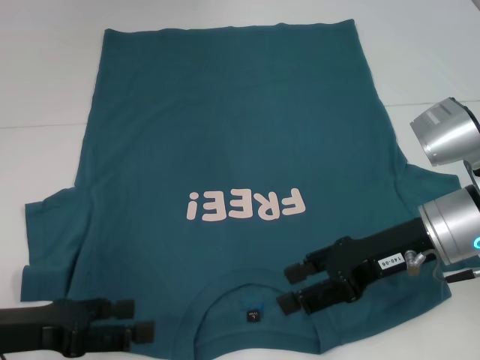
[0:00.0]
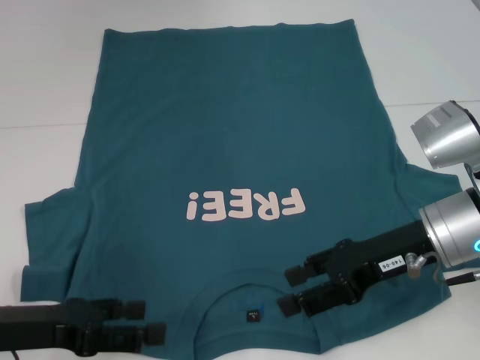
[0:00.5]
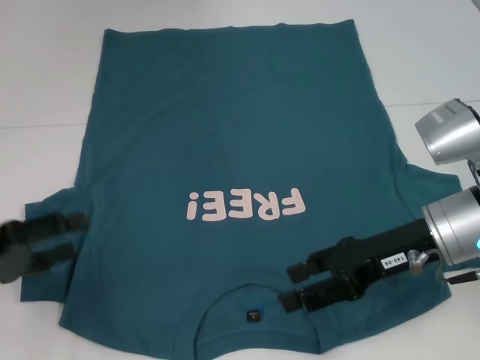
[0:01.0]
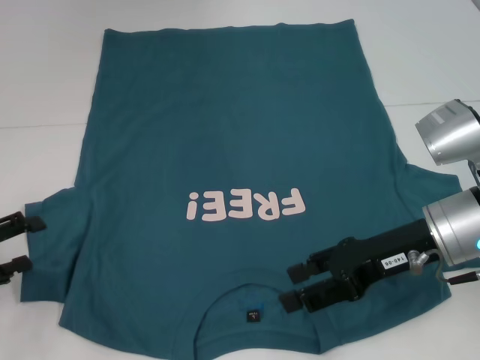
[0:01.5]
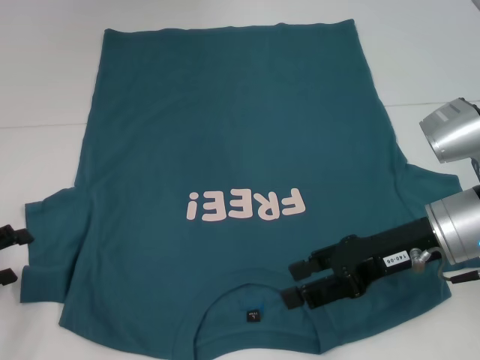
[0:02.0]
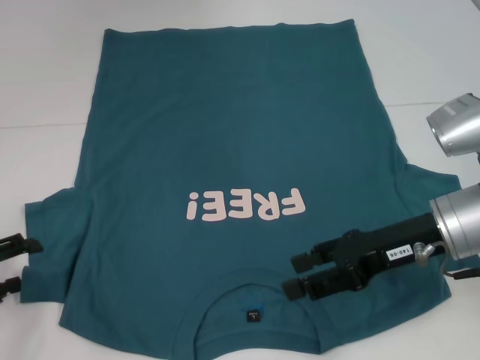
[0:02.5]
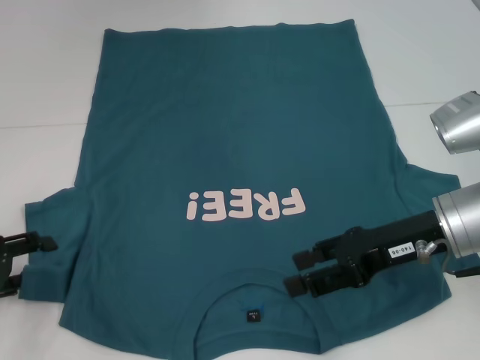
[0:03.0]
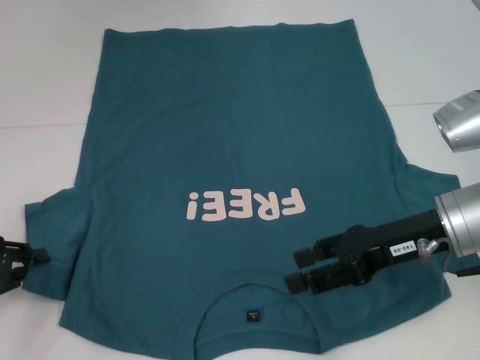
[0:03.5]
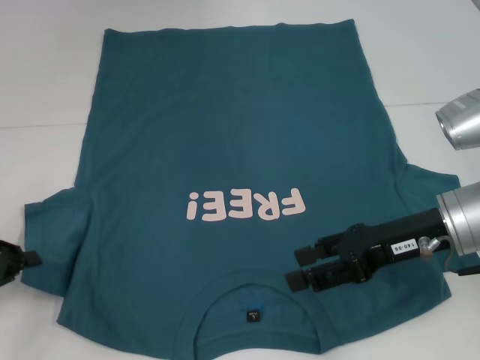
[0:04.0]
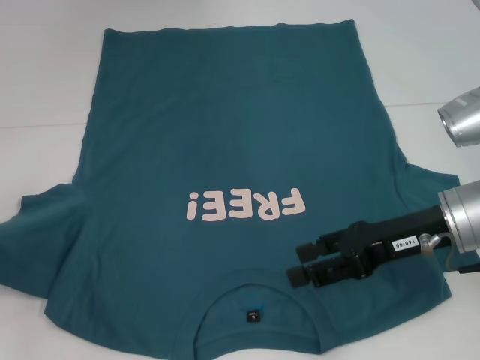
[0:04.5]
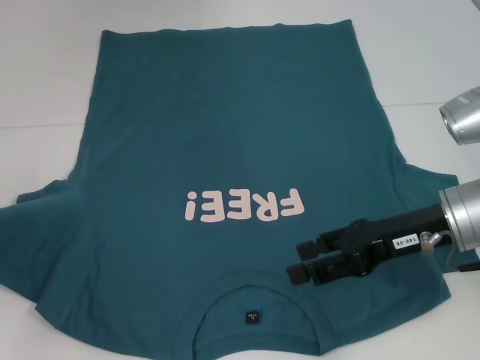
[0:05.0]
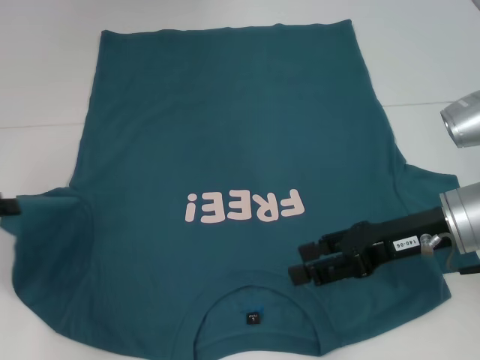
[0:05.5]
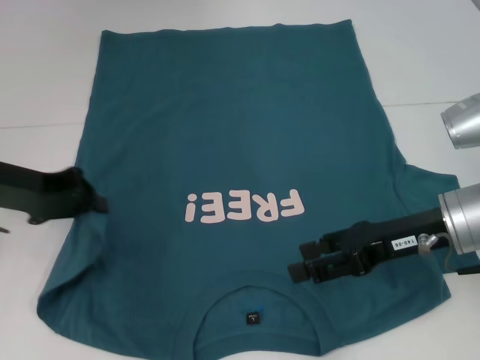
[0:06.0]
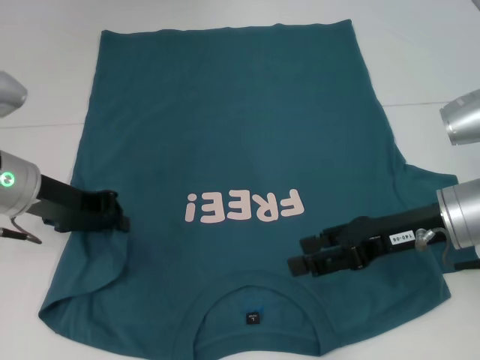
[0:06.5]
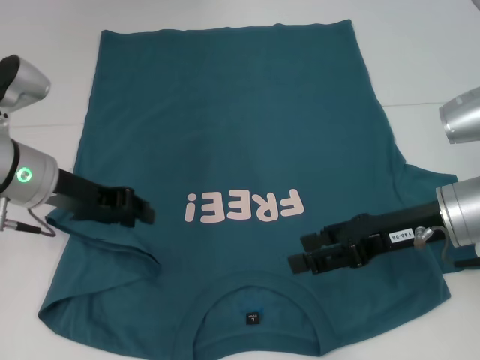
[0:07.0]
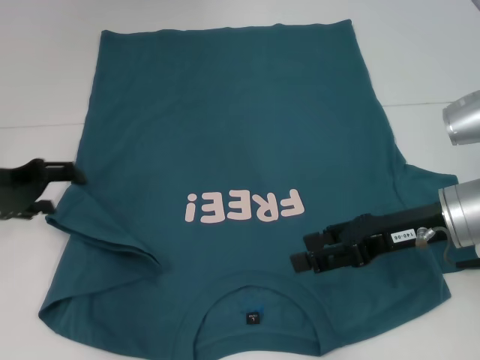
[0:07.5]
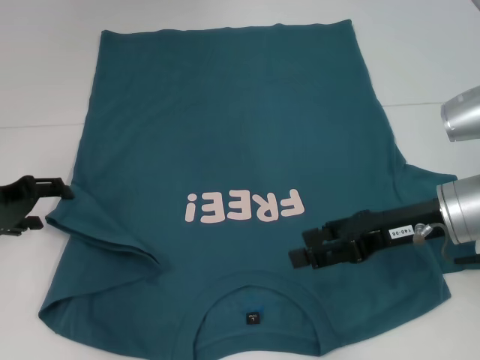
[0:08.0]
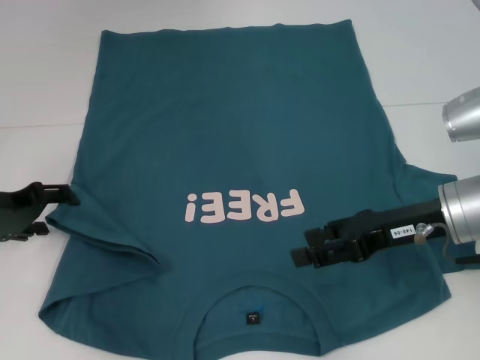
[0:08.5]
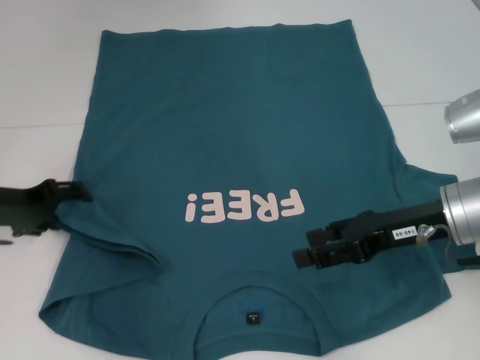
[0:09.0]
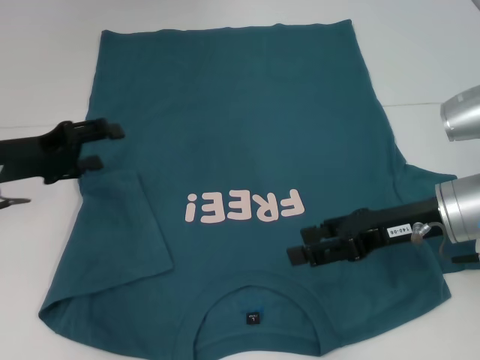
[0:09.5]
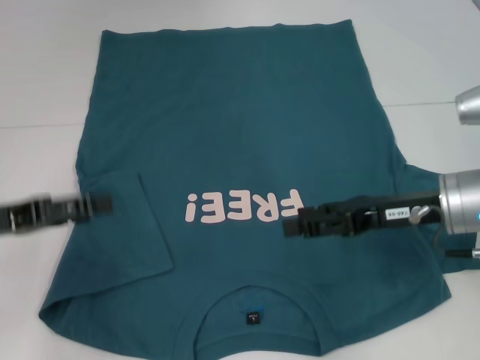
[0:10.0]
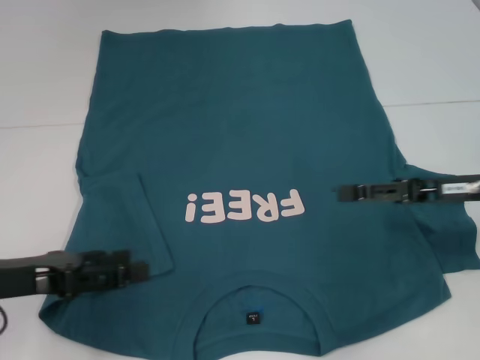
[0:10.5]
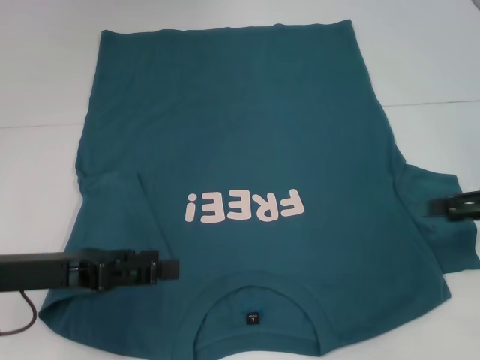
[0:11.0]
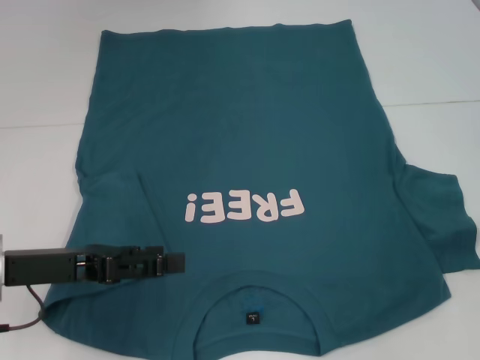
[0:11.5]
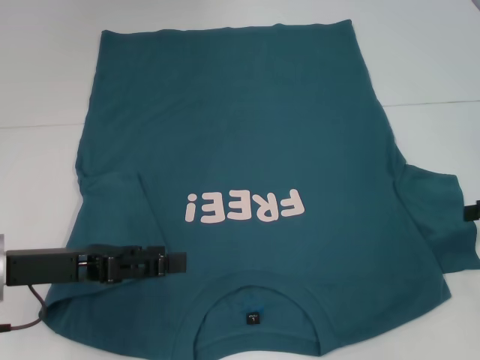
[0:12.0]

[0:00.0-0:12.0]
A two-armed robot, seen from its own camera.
Step, 0:00.0 to 0:09.5: Fold the bottom left sleeve with your left hand.
0:00.0 to 0:02.0: The left gripper is displaced to the left by some 10 cm.
0:02.0 to 0:04.0: The left gripper closes up.
0:04.0 to 0:06.0: The left gripper heads to the right, forward and upward, covering some 15 cm.
0:06.0 to 0:08.0: The left gripper goes approximately 5 cm downward, and opens its fingers.
0:08.0 to 0:10.0: The left gripper moves backward, roughly 5 cm.
0:10.0 to 0:12.0: The left gripper goes about 5 cm to the right. The right gripper goes some 15 cm to the right.

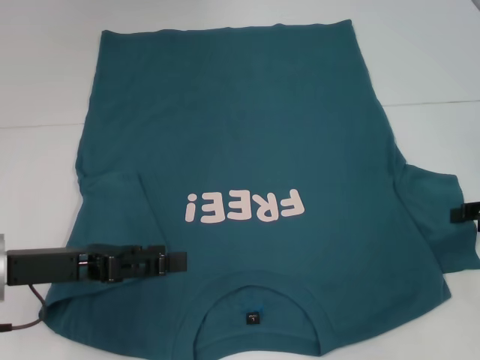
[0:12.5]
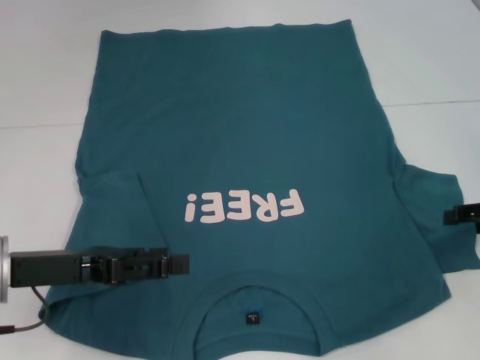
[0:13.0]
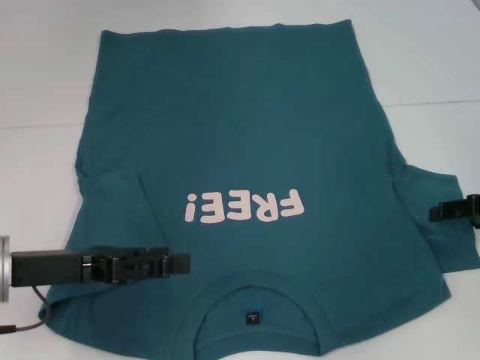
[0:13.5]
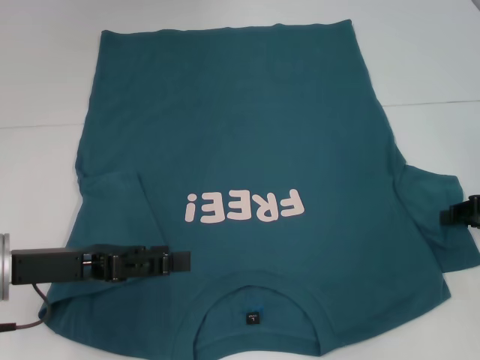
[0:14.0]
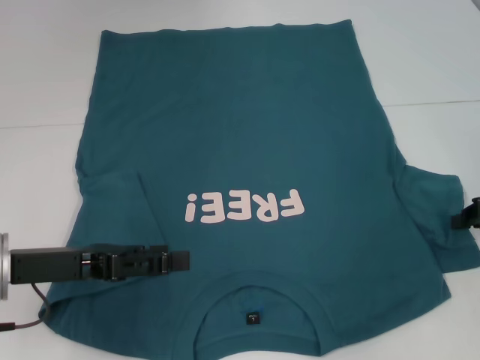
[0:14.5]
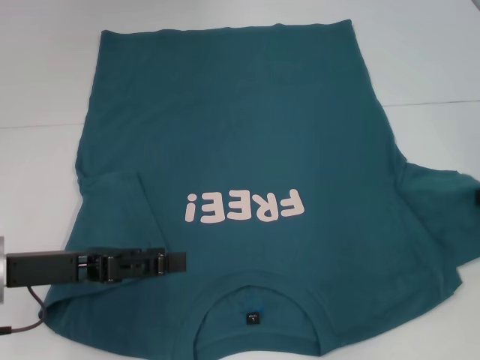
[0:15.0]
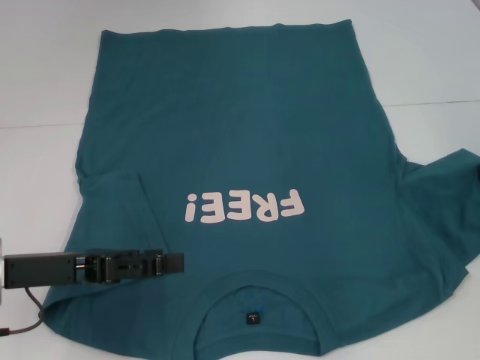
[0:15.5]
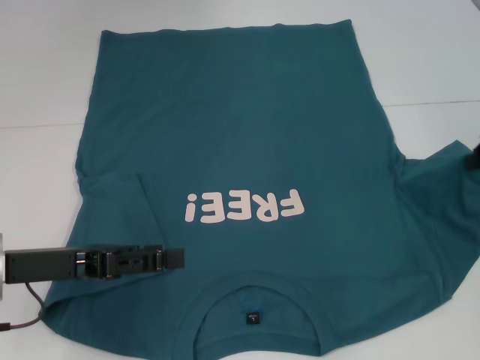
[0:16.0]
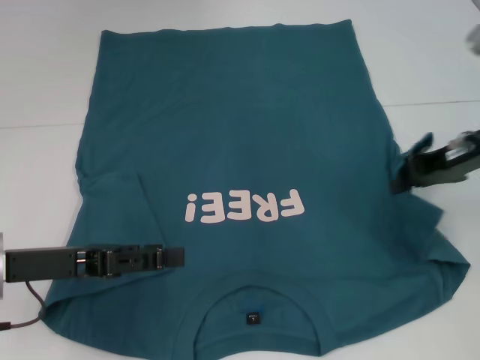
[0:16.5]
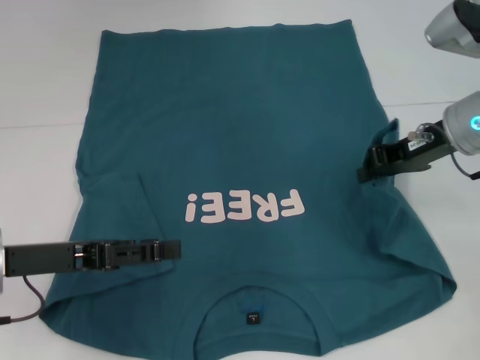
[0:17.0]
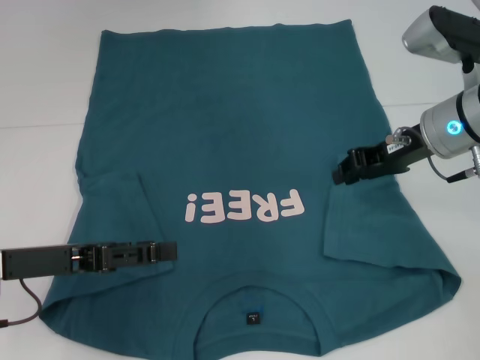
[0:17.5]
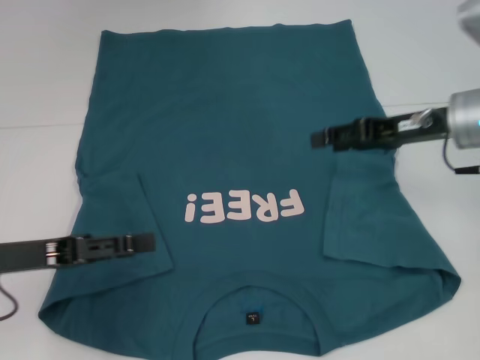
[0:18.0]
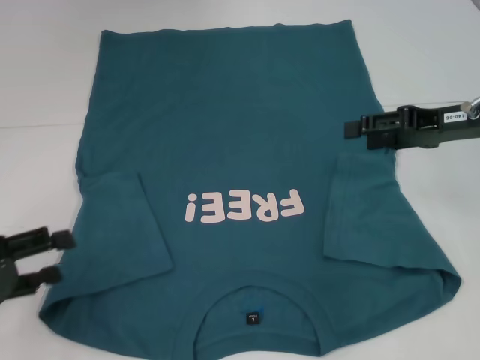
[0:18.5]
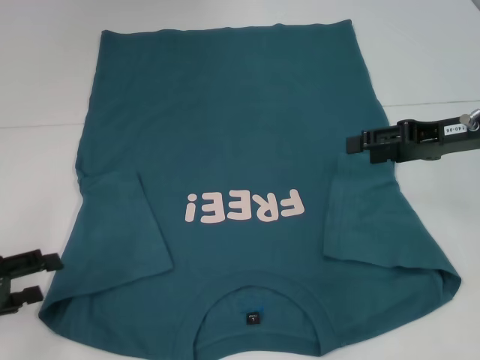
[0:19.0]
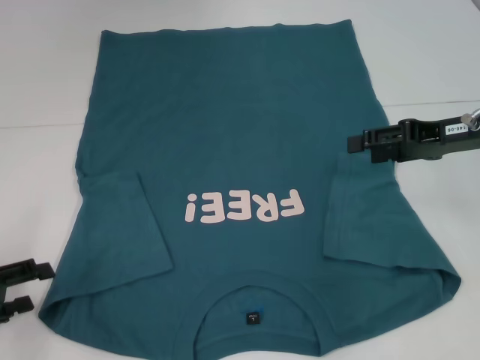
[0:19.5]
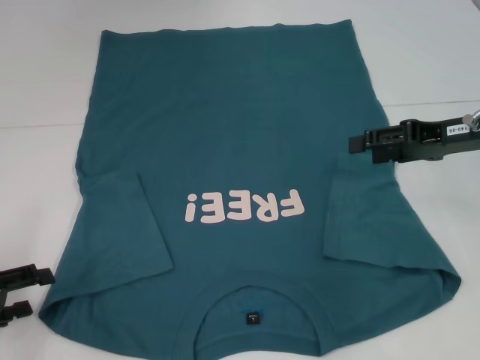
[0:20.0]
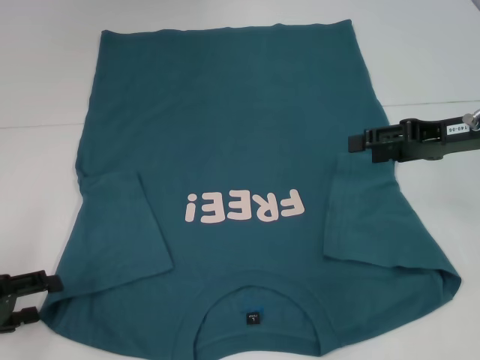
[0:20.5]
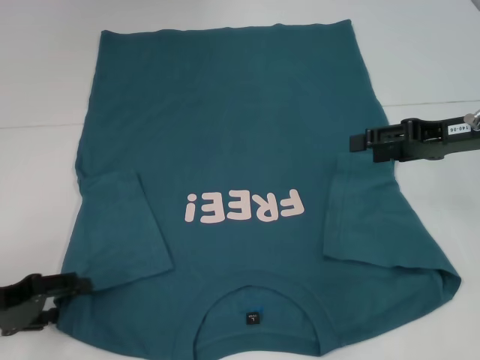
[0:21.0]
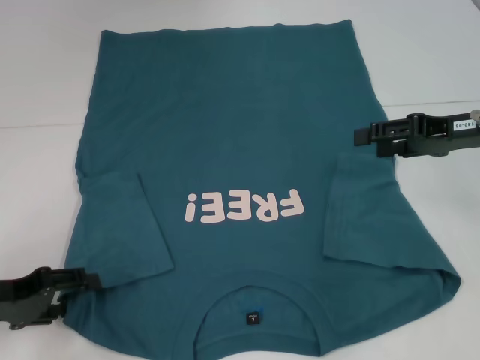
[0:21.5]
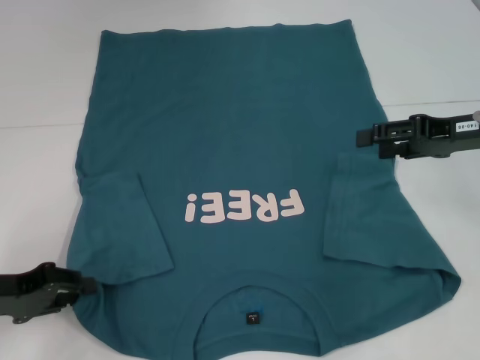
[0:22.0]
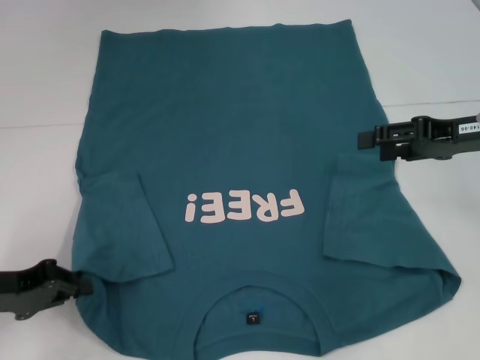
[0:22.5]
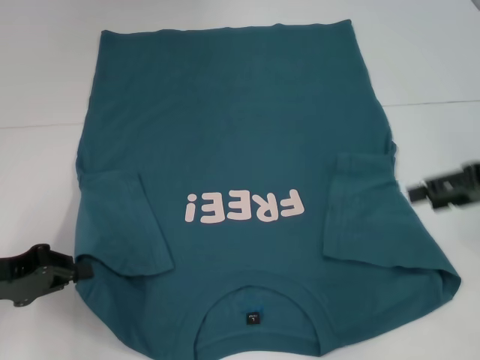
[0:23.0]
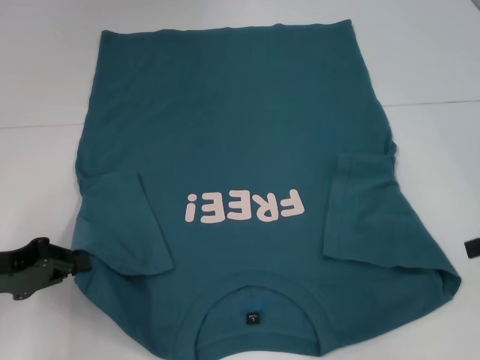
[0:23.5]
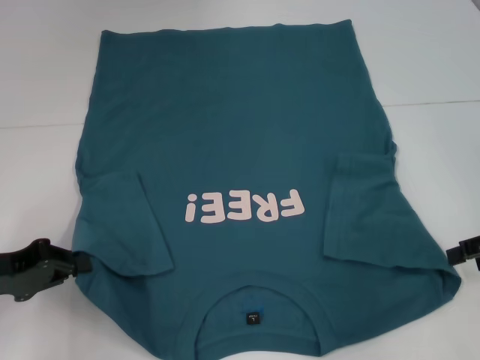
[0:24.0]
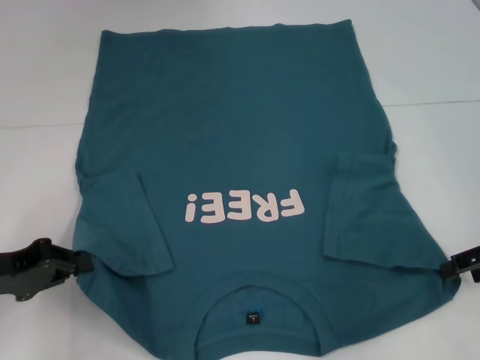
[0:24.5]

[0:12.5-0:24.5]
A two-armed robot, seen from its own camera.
Step, 0:12.5 to 0:17.5: Fold the bottom right sleeve to the right.
Step, 0:18.0 to 0:22.5: Grab the bottom left corner with your left hand.
0:14.5 to 0:16.5: The right gripper moves to the left, upward and forward, some 10 cm.
0:16.5 to 0:18.5: The right gripper opens up; the left gripper heads to the left, covering roughly 10 cm.
0:18.5 to 0:20.5: The grippers move only a little.
0:20.5 to 0:22.5: The left gripper closes.
0:22.5 to 0:24.5: The right gripper moves backward and to the right, roughly 5 cm.

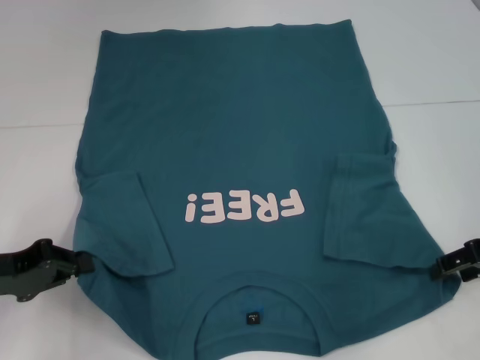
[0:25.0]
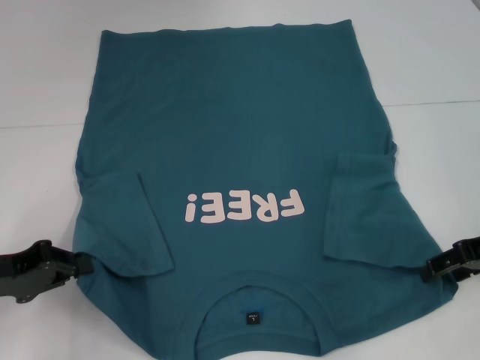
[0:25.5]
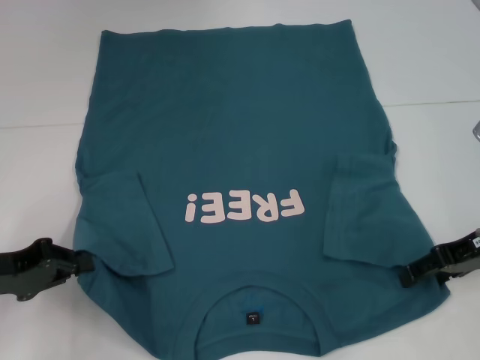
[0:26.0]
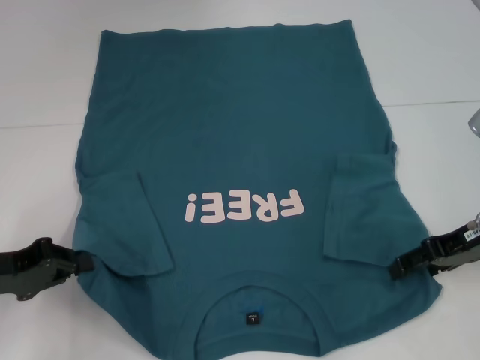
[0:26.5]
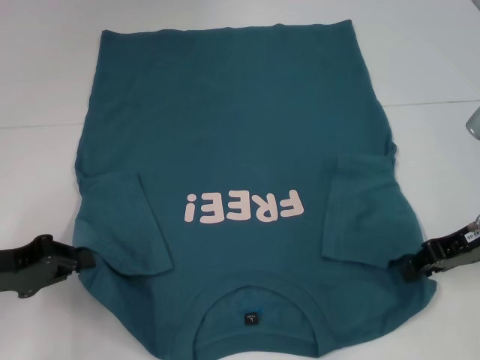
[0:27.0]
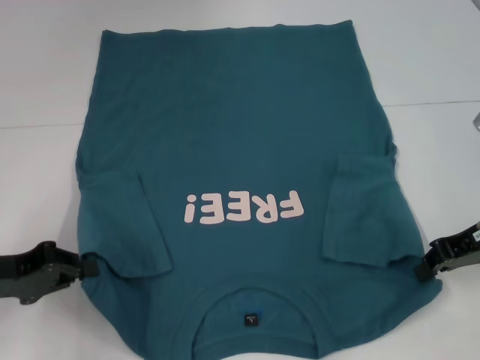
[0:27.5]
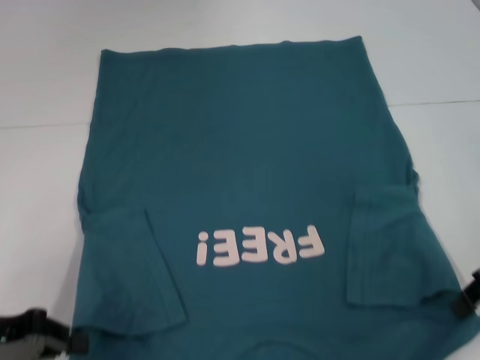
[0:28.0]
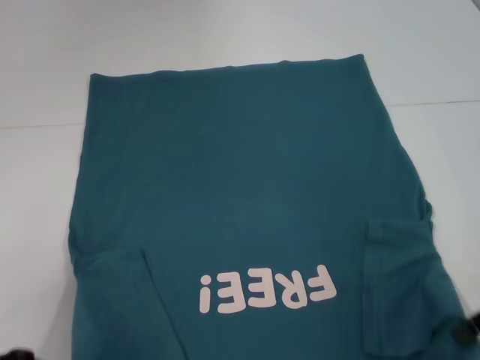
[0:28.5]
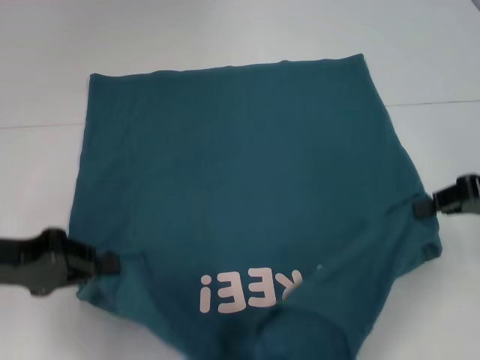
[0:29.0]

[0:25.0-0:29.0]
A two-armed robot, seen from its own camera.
Step, 0:25.0 to 0:27.0: Grab the bottom right corner with your right hand.
0:25.0 to 0:27.0: The grippers make only small movements.
0:27.0 to 0:29.0: The right gripper is displaced upward by approximately 5 cm, and closes its fingers.
